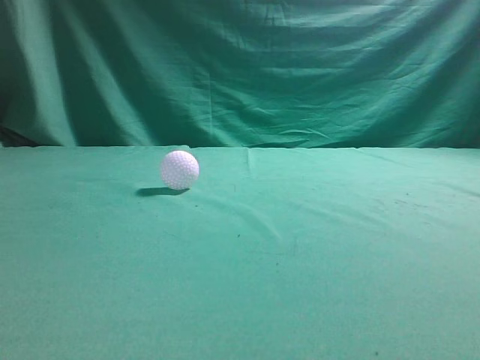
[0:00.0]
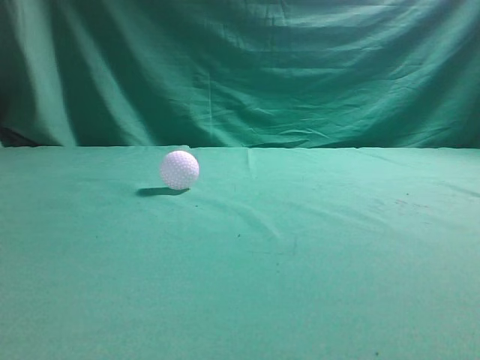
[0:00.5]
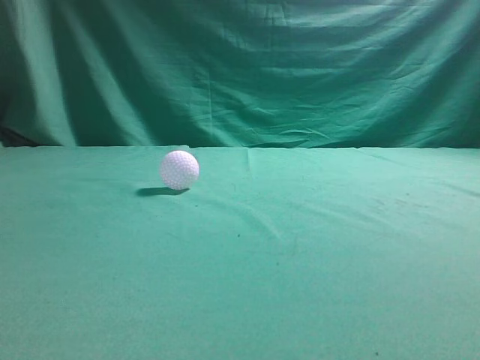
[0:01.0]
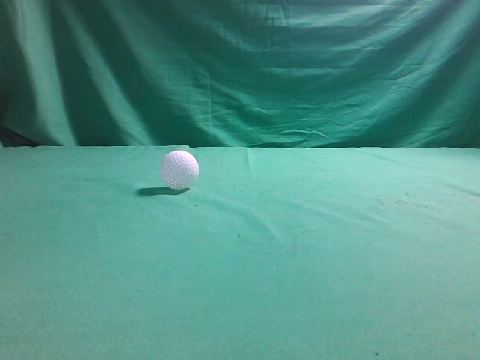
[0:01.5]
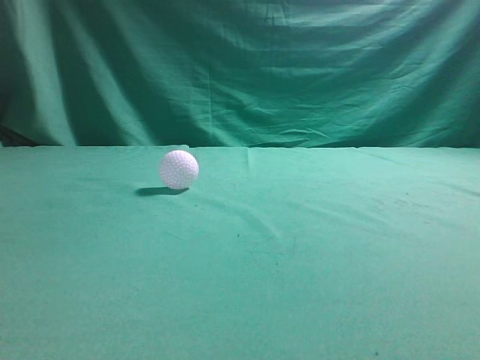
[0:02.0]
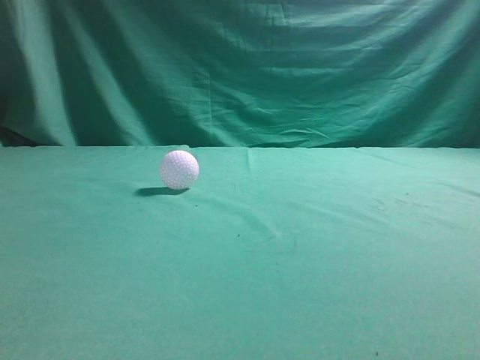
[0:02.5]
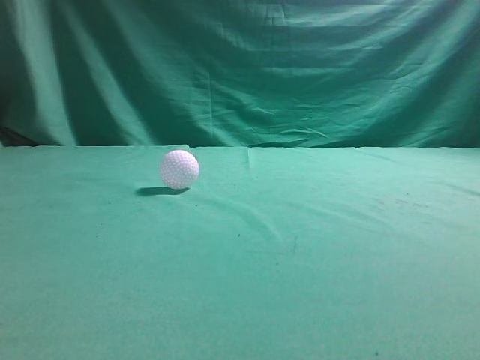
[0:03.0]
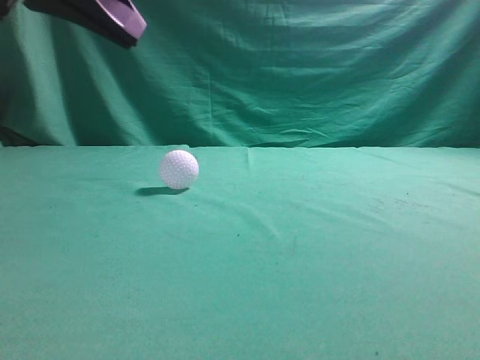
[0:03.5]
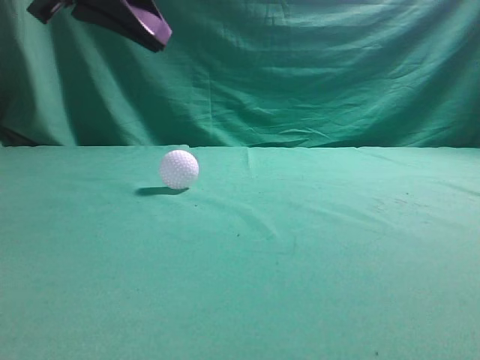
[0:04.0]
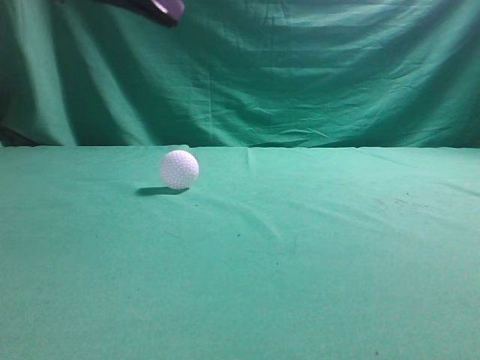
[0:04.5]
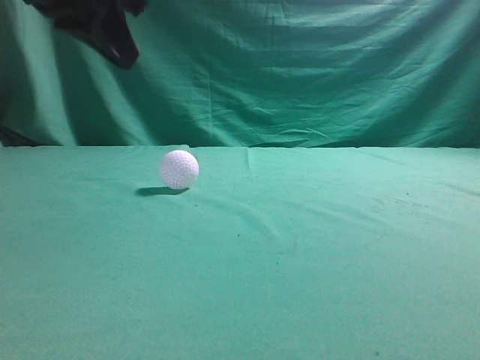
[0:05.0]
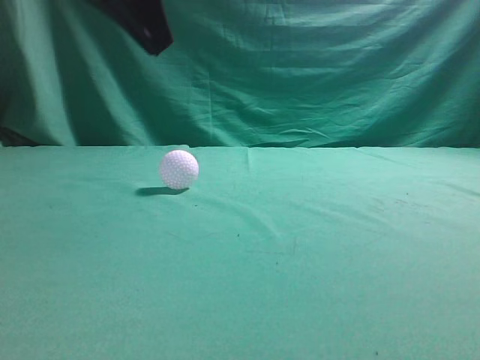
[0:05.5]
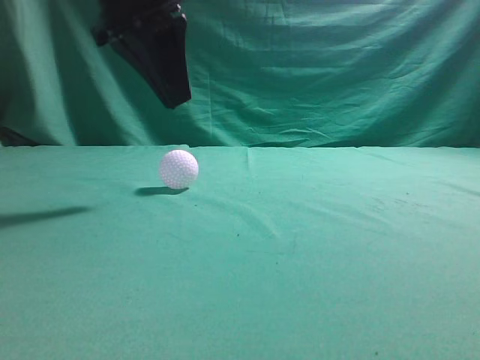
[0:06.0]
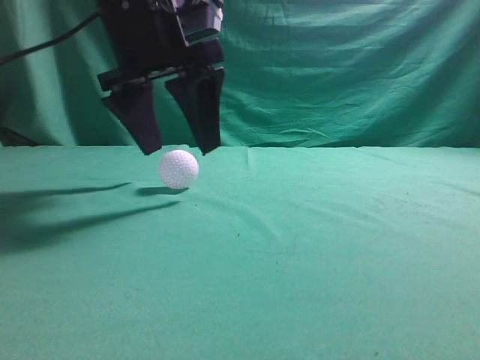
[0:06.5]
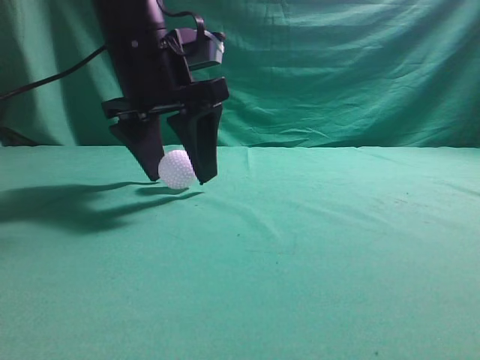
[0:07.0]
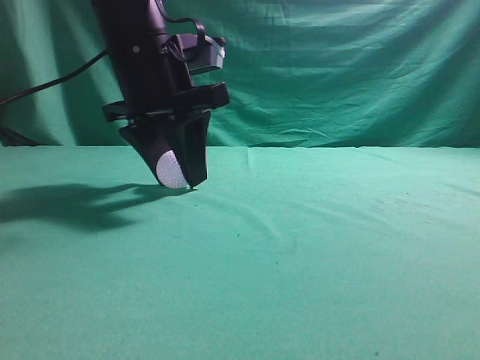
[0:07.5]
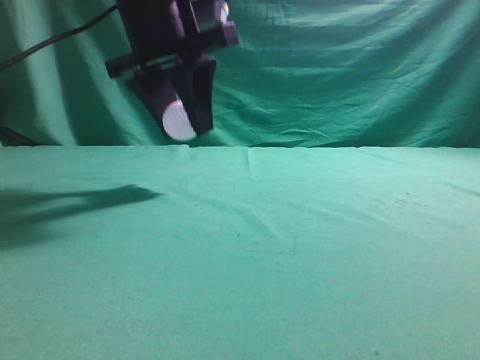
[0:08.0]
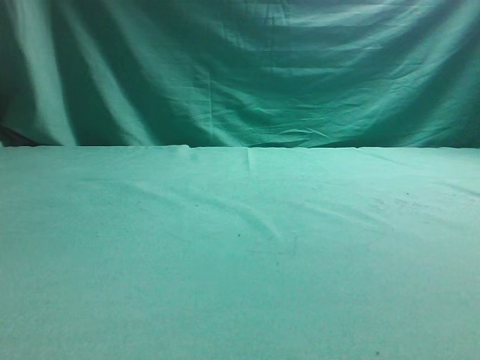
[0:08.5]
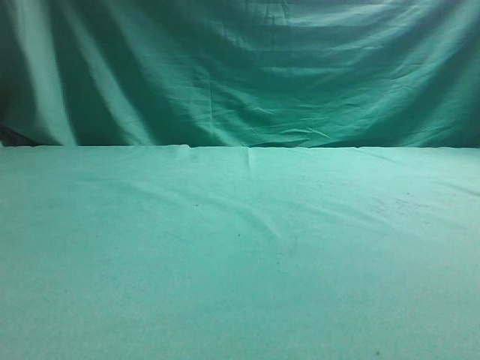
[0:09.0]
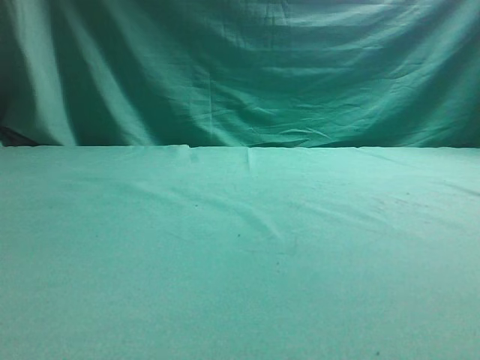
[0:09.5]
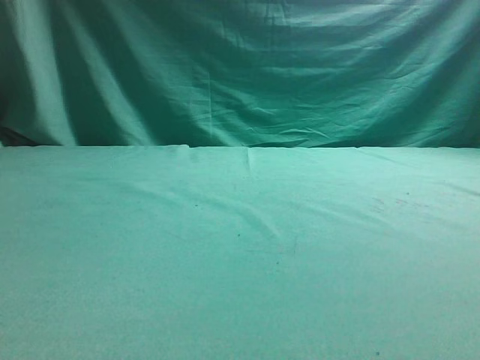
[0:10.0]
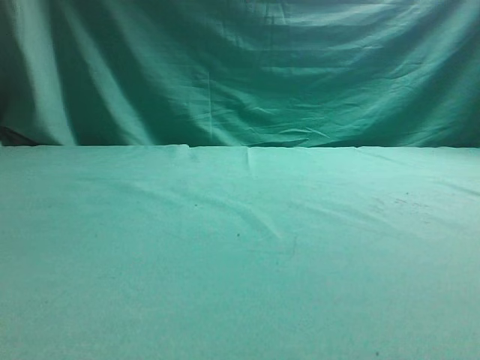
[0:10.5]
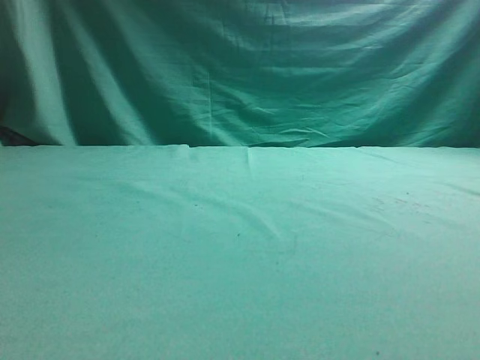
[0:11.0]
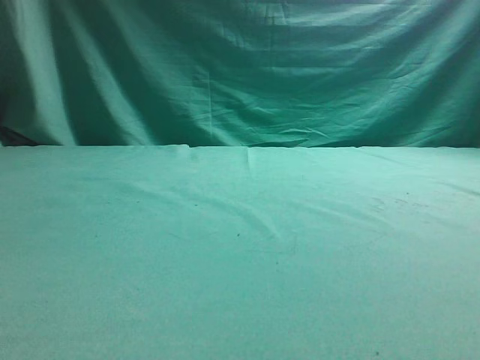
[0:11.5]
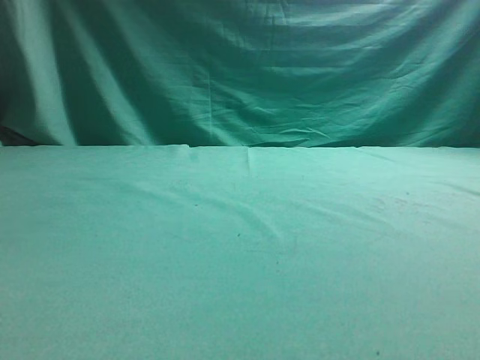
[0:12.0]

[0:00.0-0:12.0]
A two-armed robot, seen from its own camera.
Task of the whole recording: pick up the ball and place it on the plate, then pick up the ball from the plate and put it in the center of the table.
Step, 0:00.0 to 0:07.5: Grab the spherical object with your left arm.
Step, 0:08.0 to 0:11.5: Place the sphere on the white object.
0:02.0 to 0:04.0: The left gripper shifts some 25 cm forward and to the right.
0:04.0 to 0:06.0: The left gripper shifts approximately 5 cm forward.
0:06.0 to 0:08.0: The left gripper opens up.
0:08.0 to 0:10.0: The left gripper moves to the left and backward, some 25 cm. Meanwhile the right gripper travels upward by roughly 10 cm.

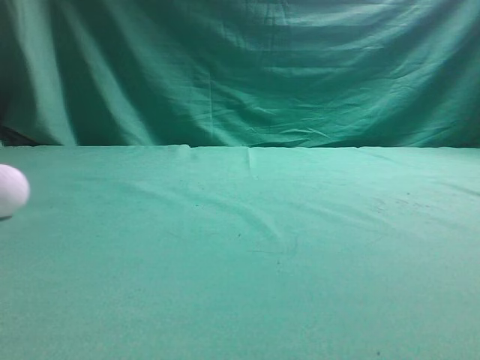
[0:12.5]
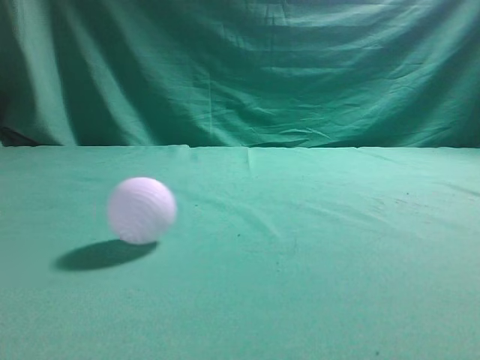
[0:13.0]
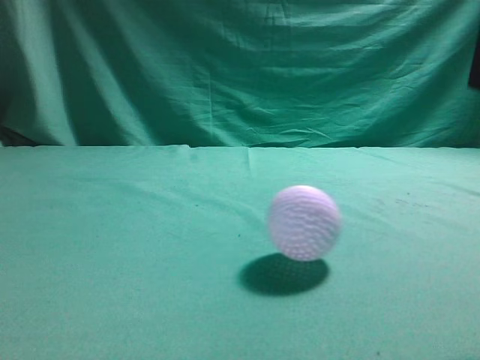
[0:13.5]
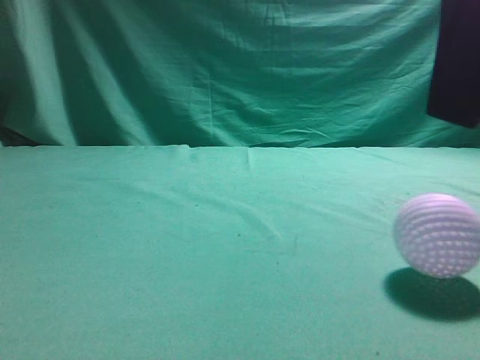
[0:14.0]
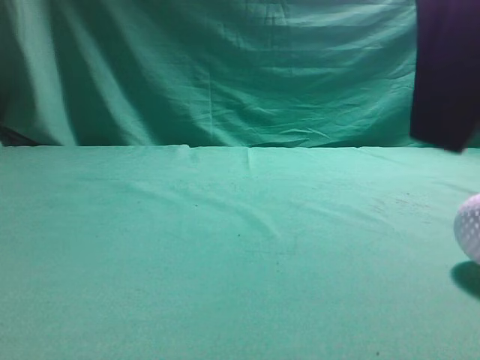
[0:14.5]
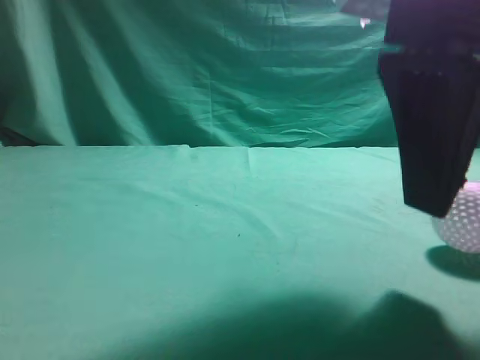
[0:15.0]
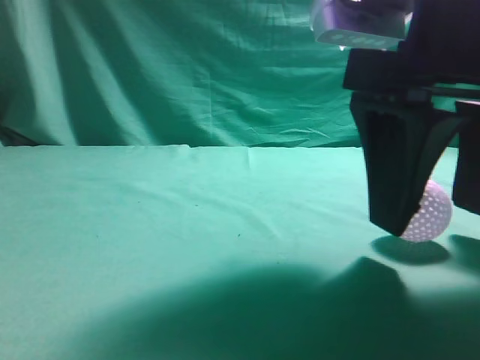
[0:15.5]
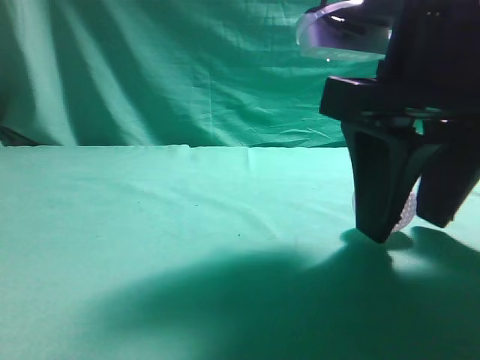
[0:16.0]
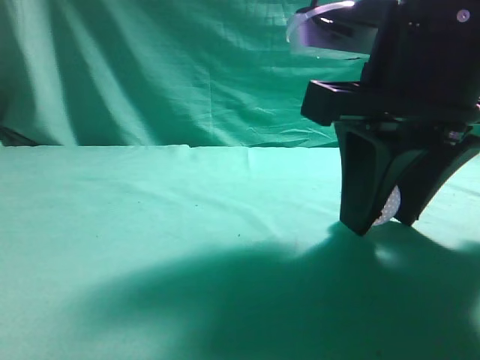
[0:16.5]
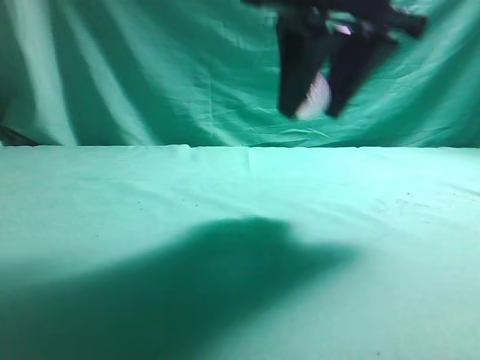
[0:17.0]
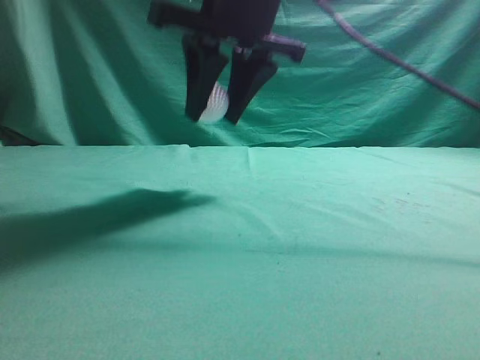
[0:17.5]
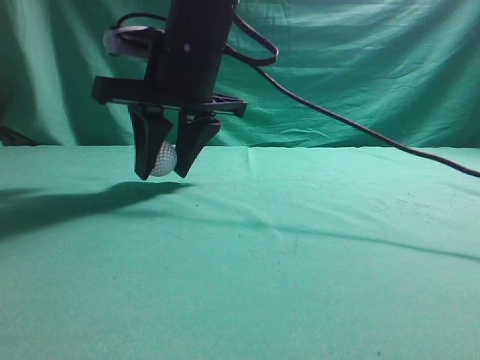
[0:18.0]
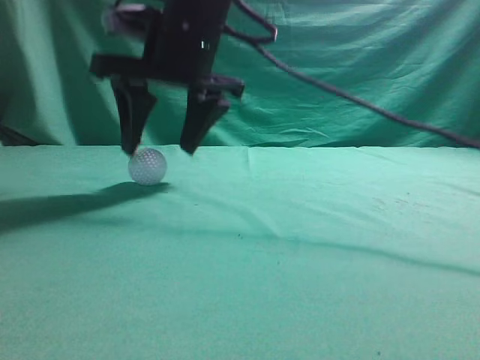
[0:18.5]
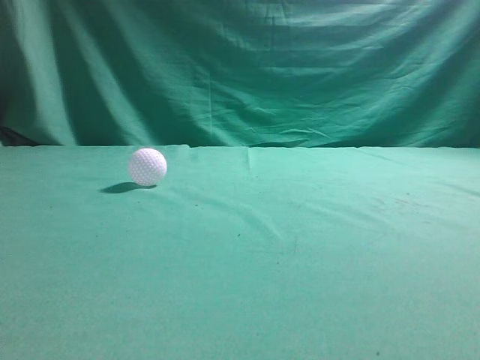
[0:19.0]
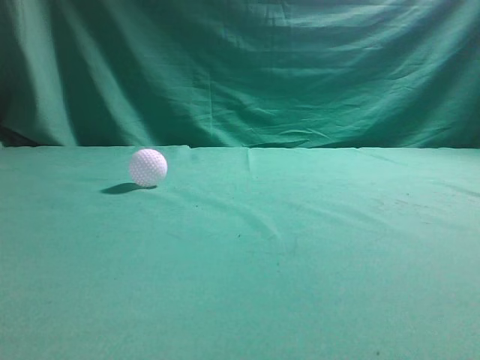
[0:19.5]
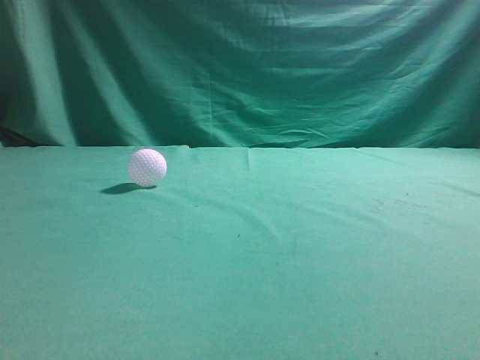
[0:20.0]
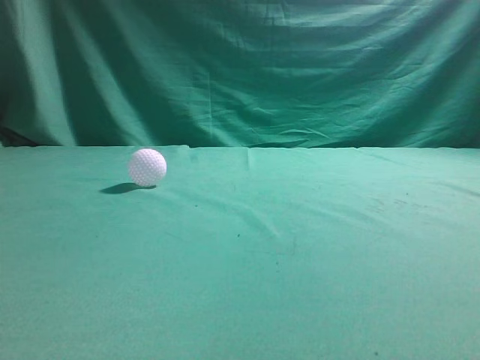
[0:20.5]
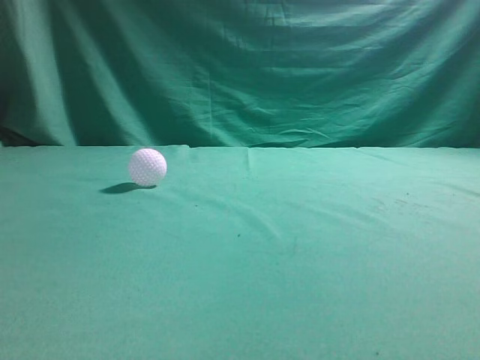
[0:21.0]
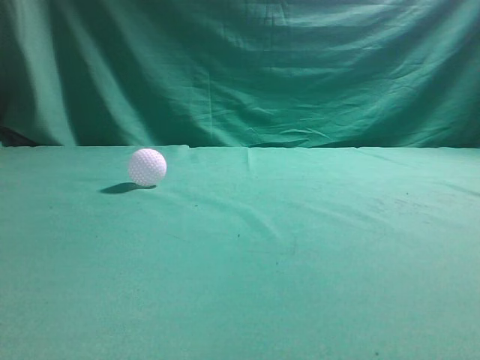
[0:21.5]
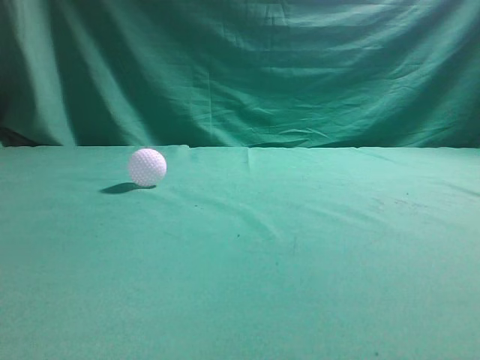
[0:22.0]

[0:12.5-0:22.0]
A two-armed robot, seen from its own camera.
Task of the whole recording: pick up the ball and place it on the plate, then pick up the ball from the plate and put it in the center of the table.
Step, 0:12.5 to 0:16.5: Grab the rolling spherical object.
Step, 0:17.0 to 0:18.5: Put the picked-up object on the table.
0:12.5 to 0:14.5: The right gripper goes about 5 cm to the left, and opens its fingers.
0:14.5 to 0:16.5: The right gripper moves forward and downward, about 10 cm, and closes.
0:16.5 to 0:18.0: The right gripper is displaced to the left and forward by roughly 20 cm.
0:18.0 to 0:20.0: The right gripper moves upward, backward and to the right, approximately 40 cm, and closes up.
